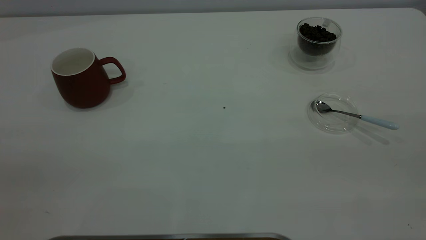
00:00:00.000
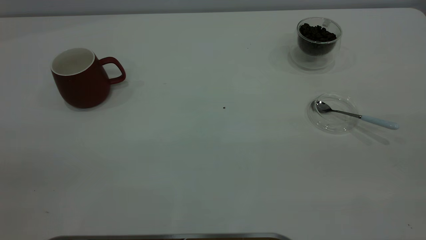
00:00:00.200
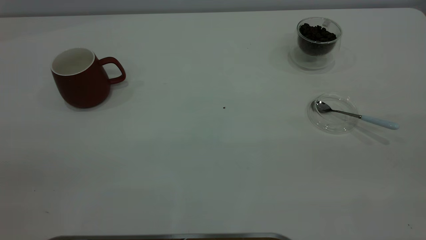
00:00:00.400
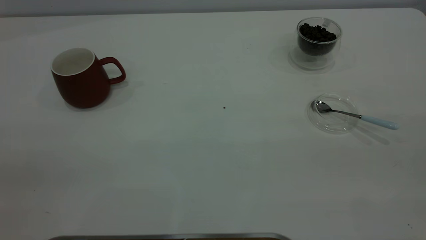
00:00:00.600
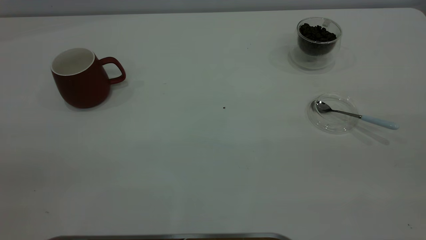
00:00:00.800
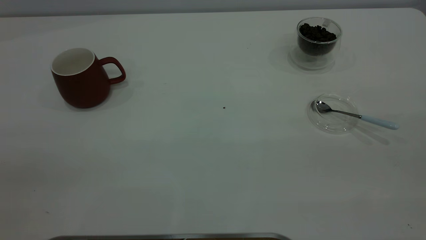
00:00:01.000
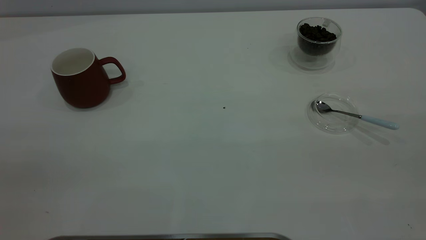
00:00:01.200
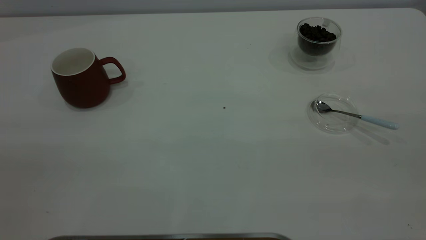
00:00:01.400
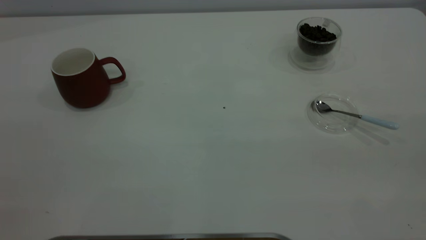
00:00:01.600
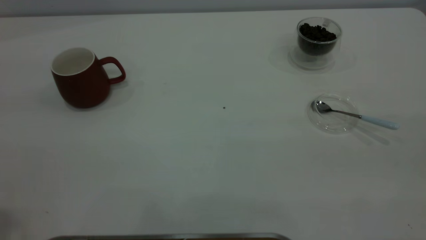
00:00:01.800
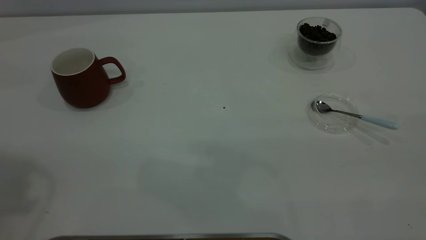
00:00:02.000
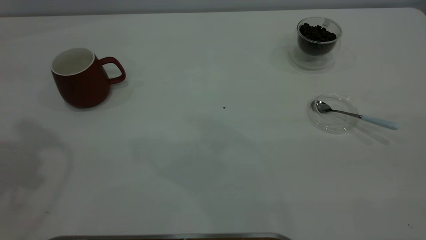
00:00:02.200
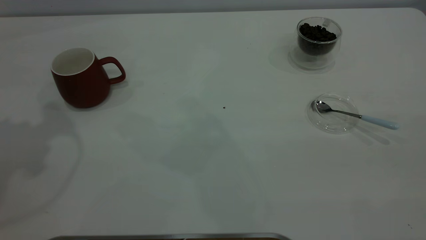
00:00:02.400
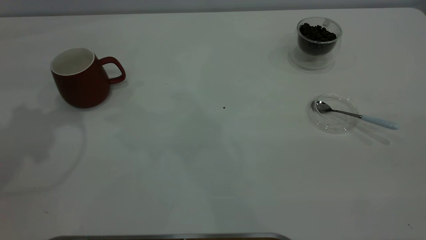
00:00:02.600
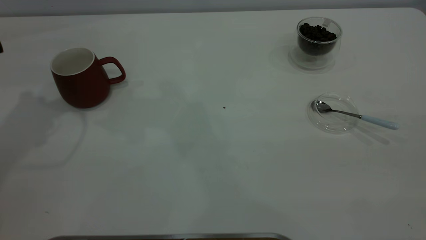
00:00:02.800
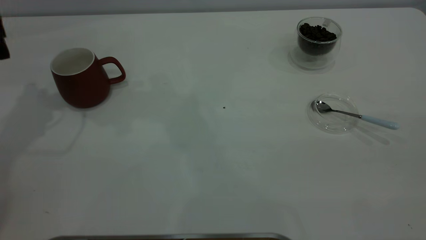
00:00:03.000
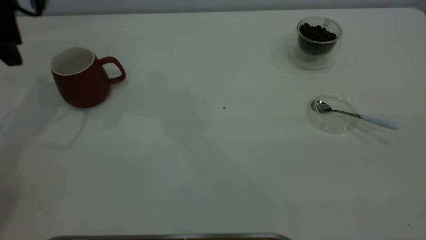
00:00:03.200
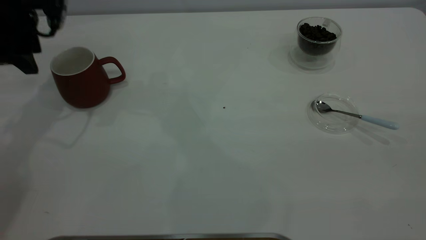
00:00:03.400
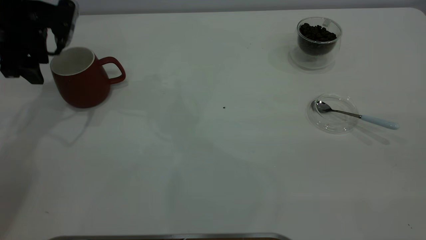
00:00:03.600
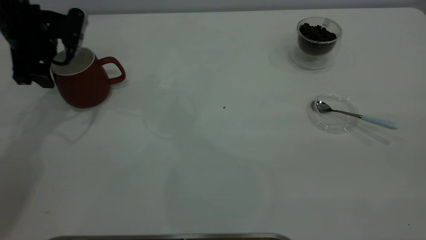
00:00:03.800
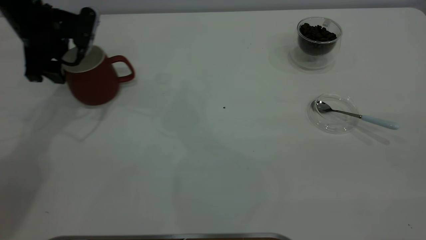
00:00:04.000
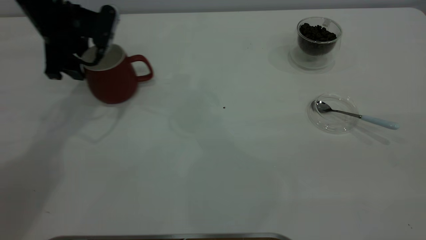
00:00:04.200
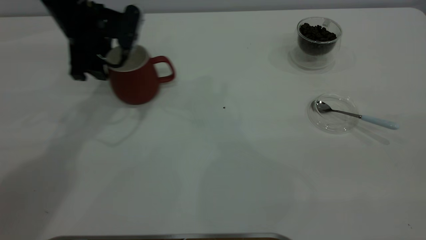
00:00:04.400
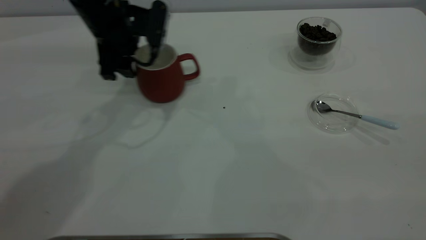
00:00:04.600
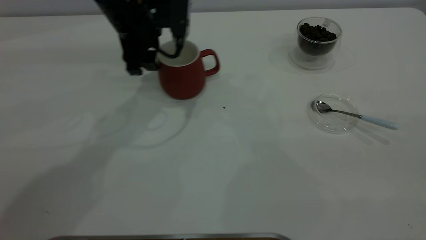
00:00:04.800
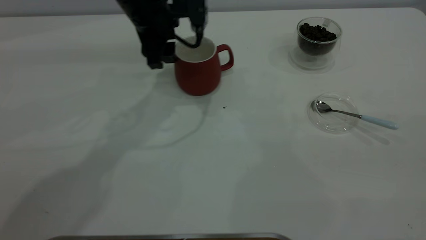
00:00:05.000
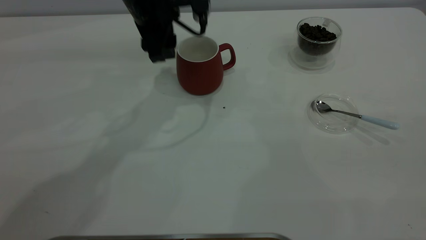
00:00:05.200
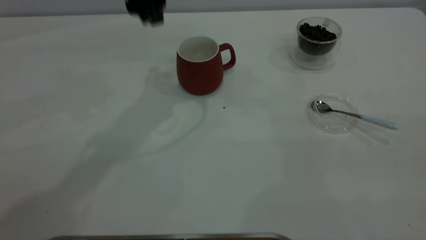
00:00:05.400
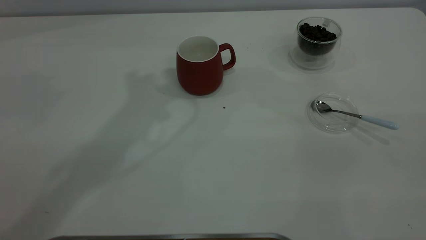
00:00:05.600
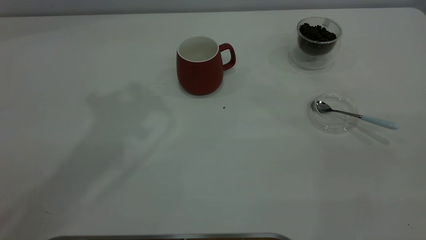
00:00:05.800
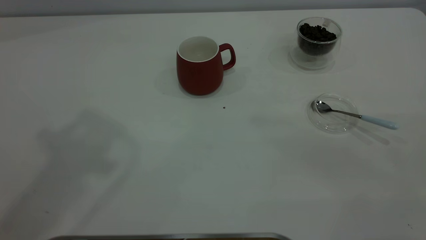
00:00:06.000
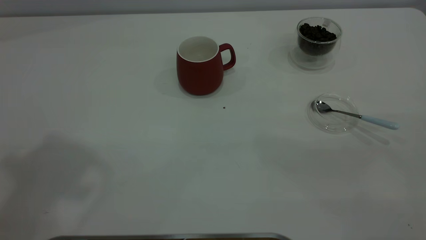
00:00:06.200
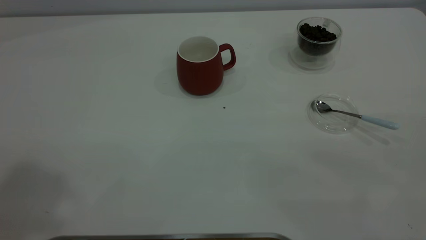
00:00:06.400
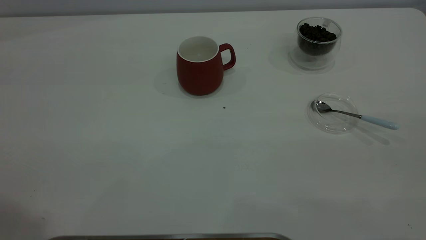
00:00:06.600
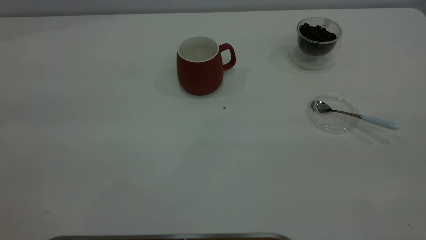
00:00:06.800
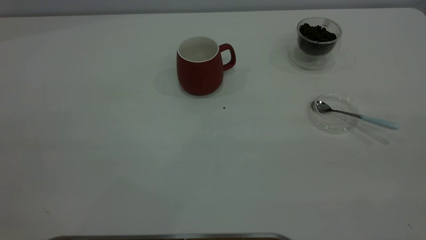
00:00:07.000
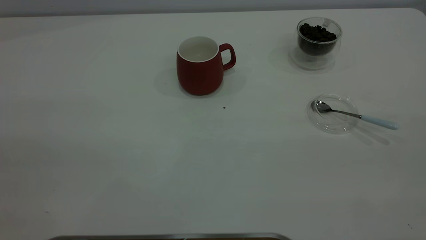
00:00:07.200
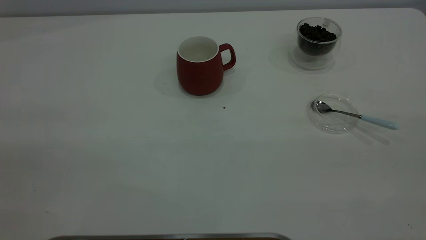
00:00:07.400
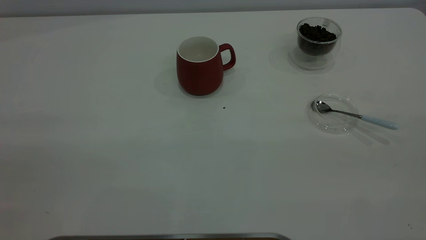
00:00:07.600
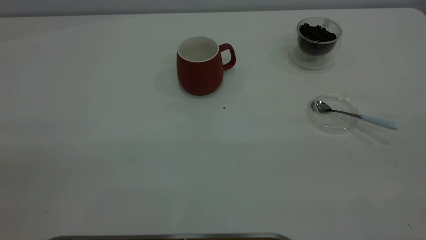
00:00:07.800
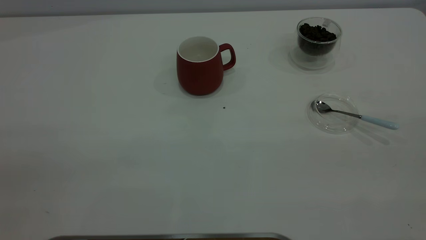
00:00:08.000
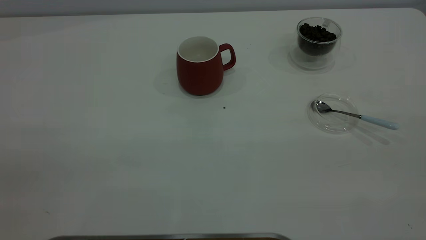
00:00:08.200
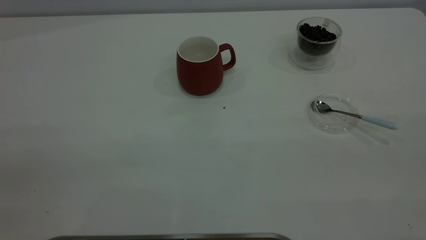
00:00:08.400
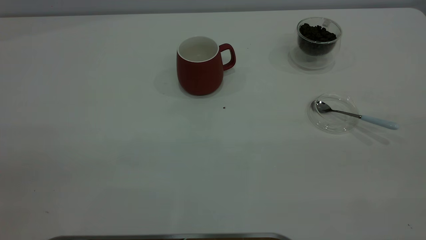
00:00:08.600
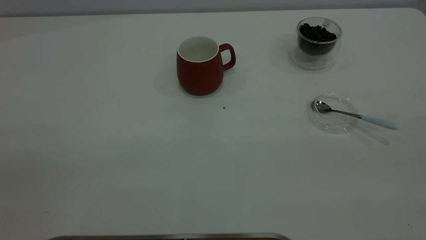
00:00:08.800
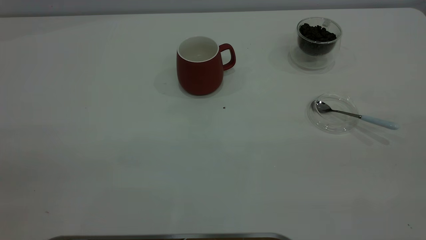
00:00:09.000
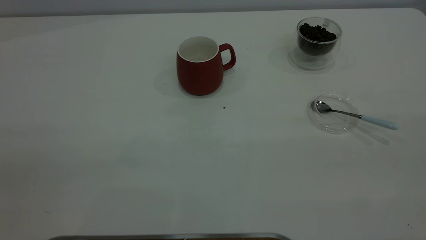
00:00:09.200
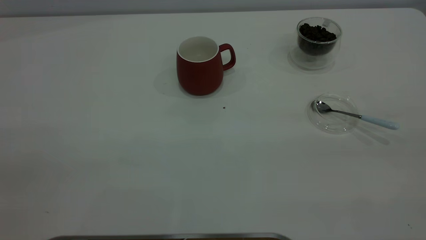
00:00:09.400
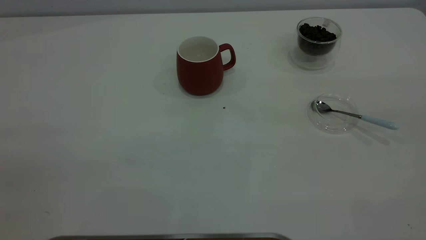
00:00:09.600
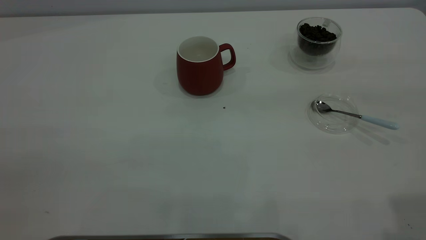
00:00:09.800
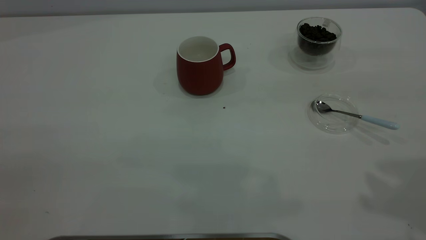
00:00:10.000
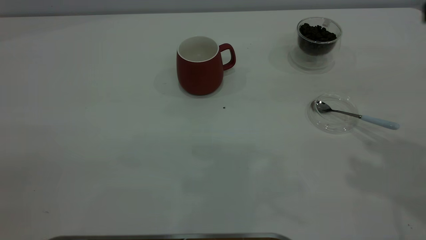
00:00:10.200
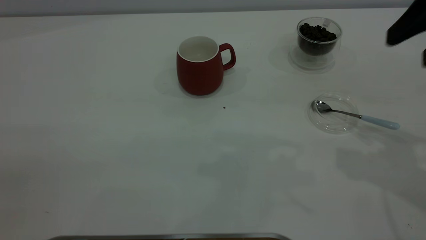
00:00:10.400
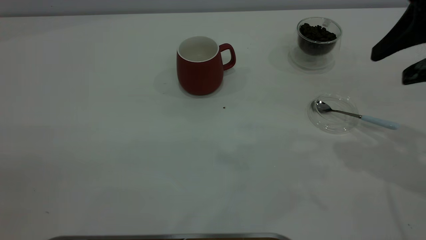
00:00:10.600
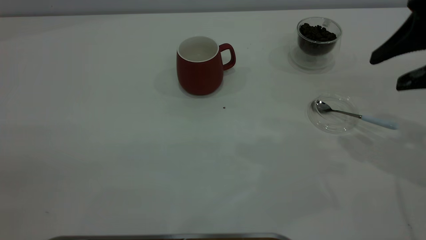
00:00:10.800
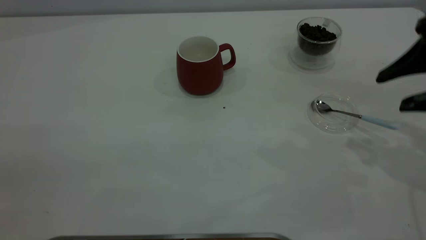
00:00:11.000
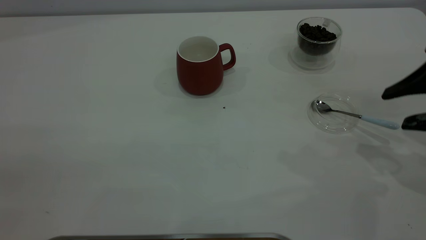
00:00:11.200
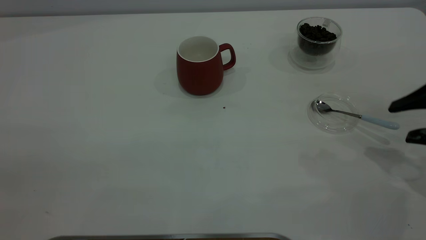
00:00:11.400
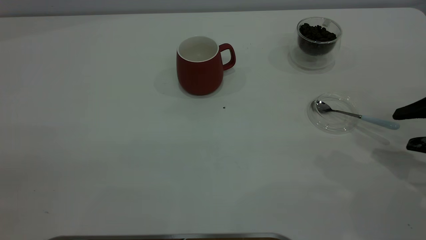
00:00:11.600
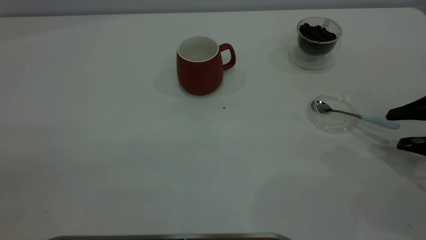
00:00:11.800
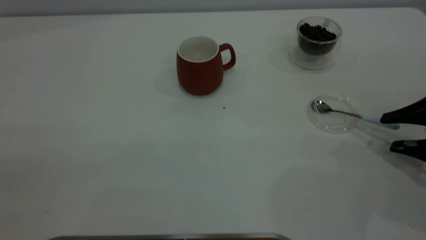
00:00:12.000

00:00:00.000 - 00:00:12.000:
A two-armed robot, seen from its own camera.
Task of the whole recording: the left gripper place the red cup in the center of the table, the right gripper take the blue spoon from the cup lid and scoop out the coffee beans from the coffee cup and put them into the red cup, the right gripper put the spoon back into the cup lid.
Step, 00:00:00.000 - 00:00:05.200: Move the cup to the center of view.
00:00:03.000 - 00:00:04.400: The left gripper shifts some 15 cm to the right and downward.
00:00:04.400 - 00:00:06.000: The left gripper is displaced upward and backward by roughly 40 cm.
00:00:09.000 - 00:00:10.400: The right gripper goes roughly 25 cm forward.
00:00:10.400 - 00:00:12.000: The right gripper heads downward and to the right, covering about 25 cm.

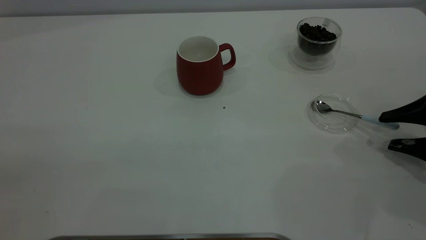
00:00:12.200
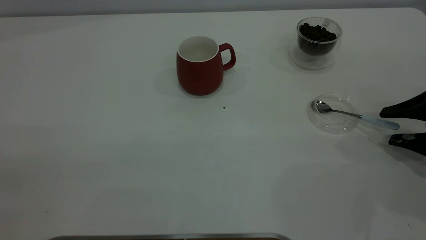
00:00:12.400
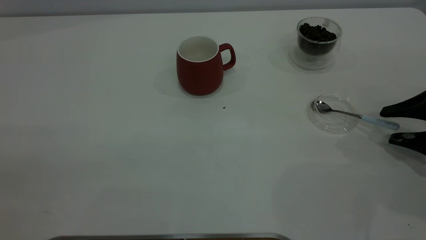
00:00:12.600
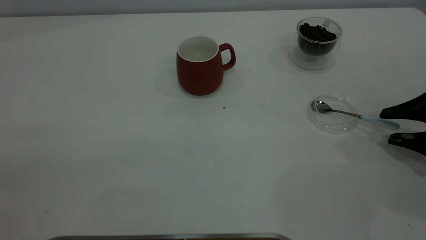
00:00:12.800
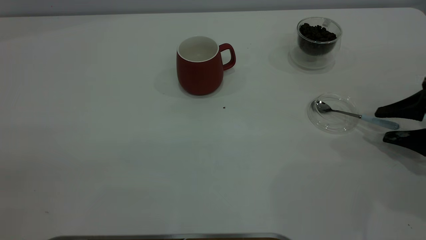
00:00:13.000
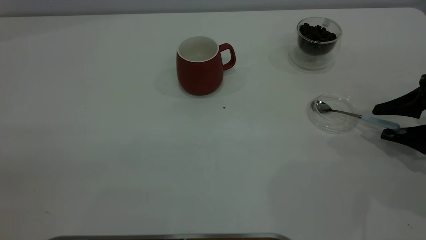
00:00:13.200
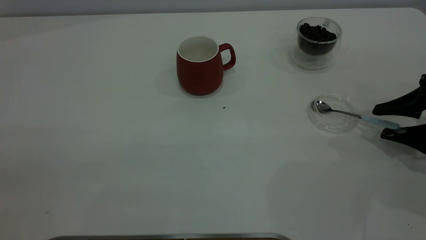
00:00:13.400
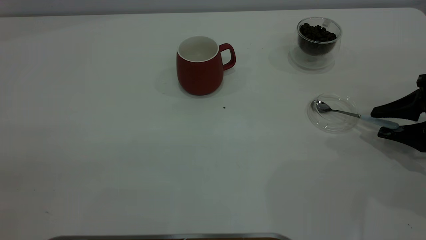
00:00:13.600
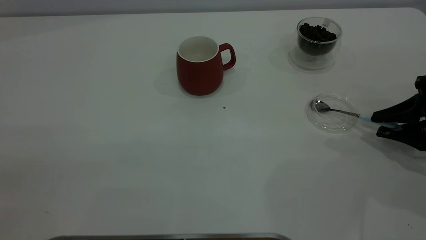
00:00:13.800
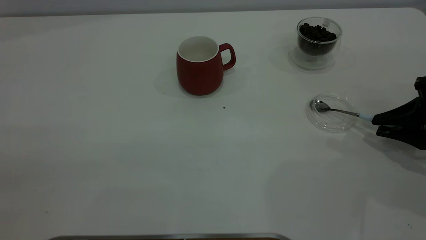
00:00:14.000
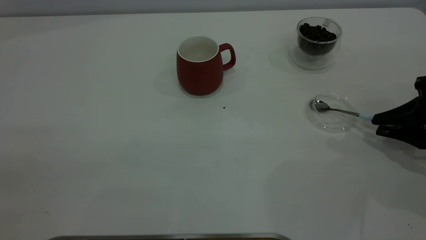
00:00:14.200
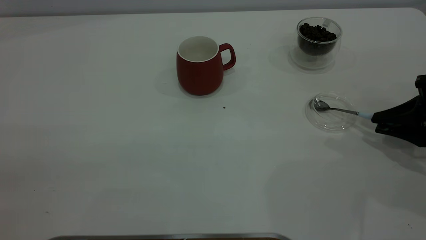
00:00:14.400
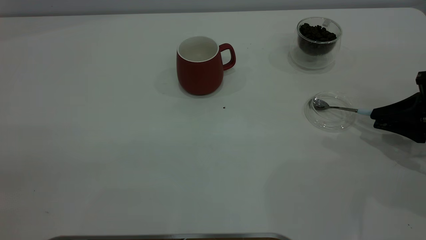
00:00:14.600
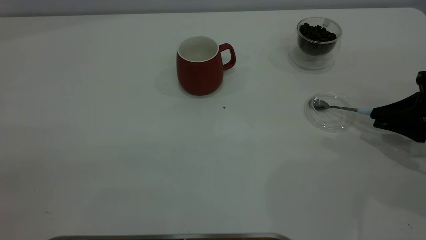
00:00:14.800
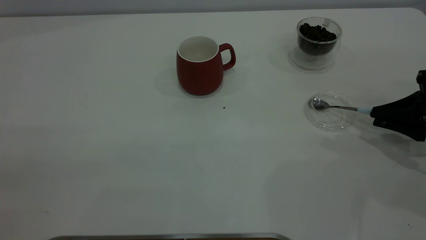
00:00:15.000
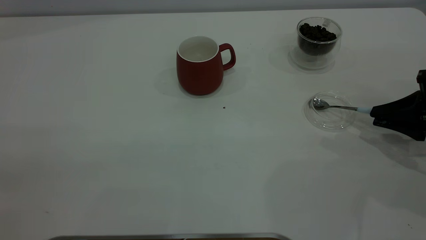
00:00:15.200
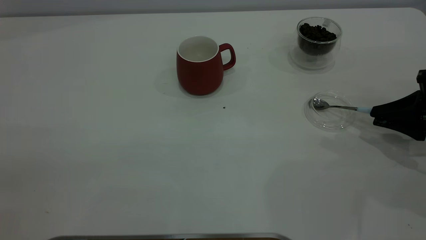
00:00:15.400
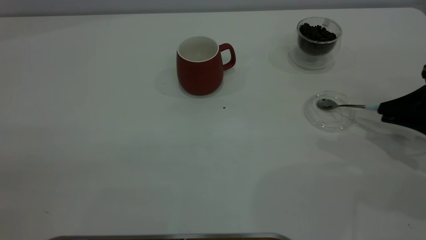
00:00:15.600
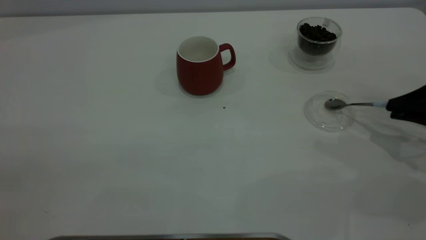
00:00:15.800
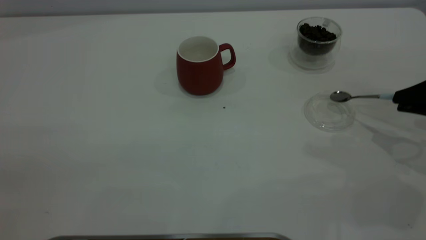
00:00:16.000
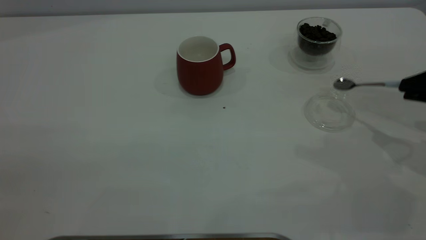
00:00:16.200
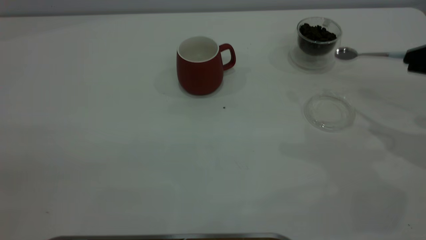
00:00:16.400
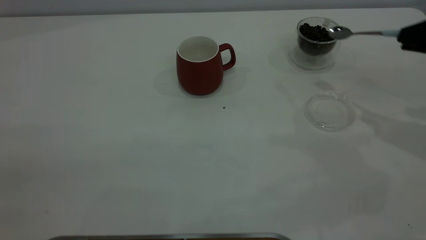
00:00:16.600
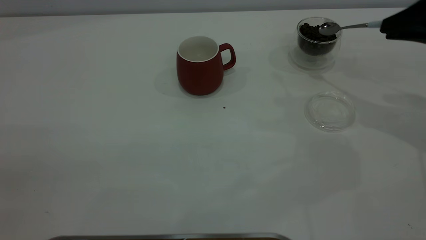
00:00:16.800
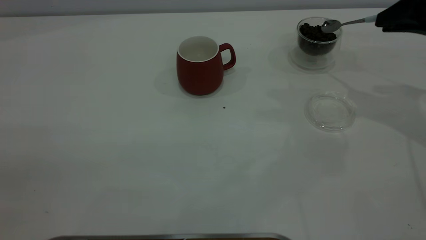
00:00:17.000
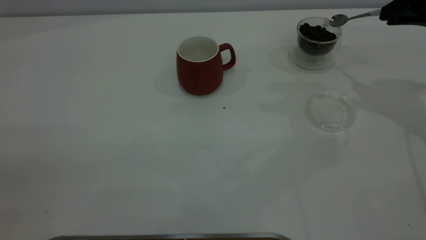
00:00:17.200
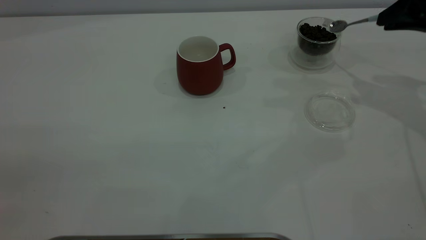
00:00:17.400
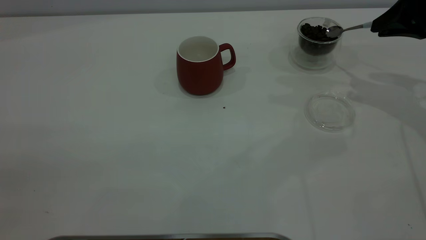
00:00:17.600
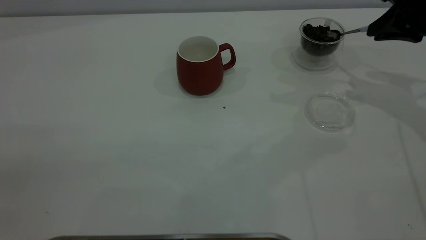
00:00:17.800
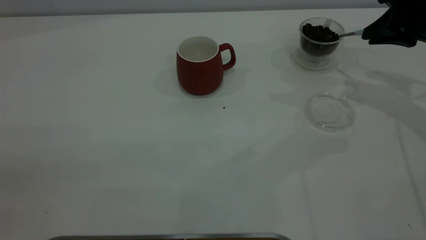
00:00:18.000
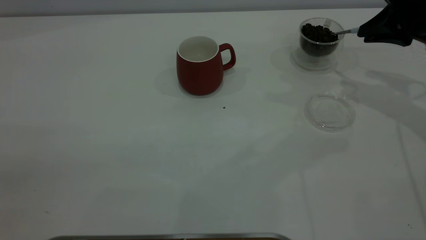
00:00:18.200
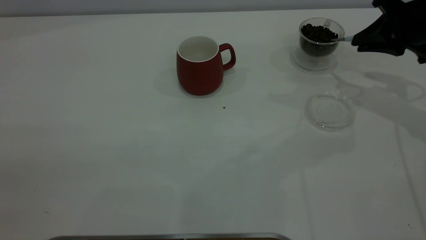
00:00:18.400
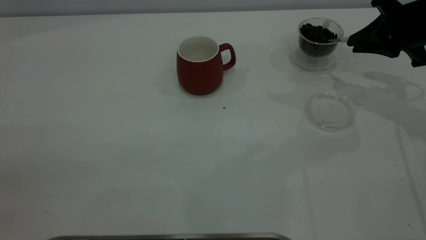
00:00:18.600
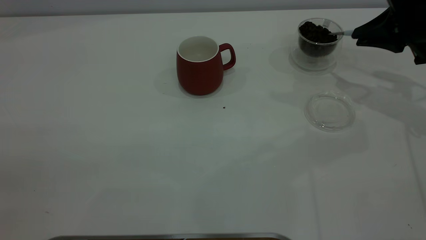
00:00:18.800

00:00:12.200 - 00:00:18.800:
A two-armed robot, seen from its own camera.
Task of the whole recording: the left gripper place the red cup in the center of the table, the right gripper take the blue spoon from the cup lid and scoop out the coffee beans from the coffee cup and put them into the red cup, the right gripper put the spoon back into the cup lid.
Step, 00:00:12.200 - 00:00:16.000: Pick up the spoon.
00:00:12.200 - 00:00:13.800: The right gripper closes up.
00:00:13.800 - 00:00:15.400: The right gripper closes up.
00:00:15.400 - 00:00:17.200: The right gripper heads upward and forward, covering about 15 cm.
00:00:17.200 - 00:00:18.800: The right gripper travels downward by roughly 5 cm.
